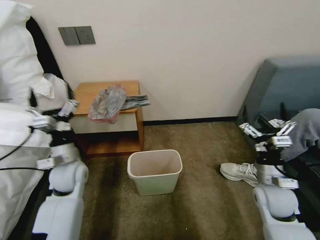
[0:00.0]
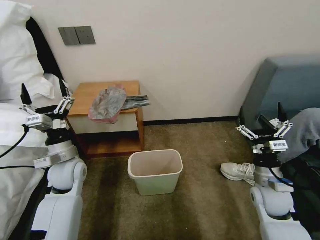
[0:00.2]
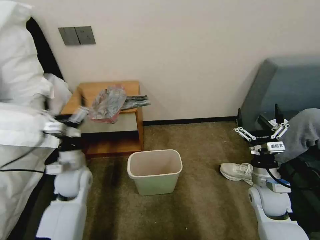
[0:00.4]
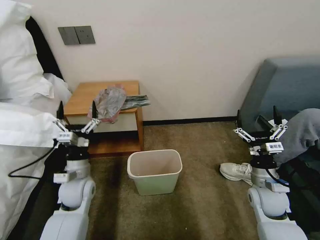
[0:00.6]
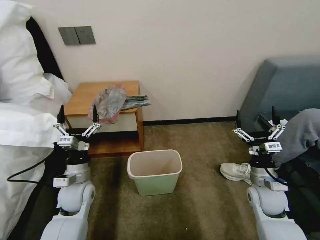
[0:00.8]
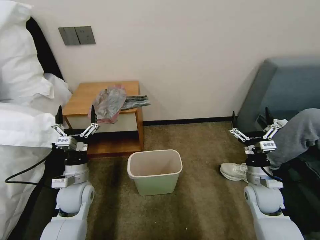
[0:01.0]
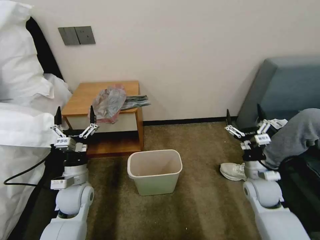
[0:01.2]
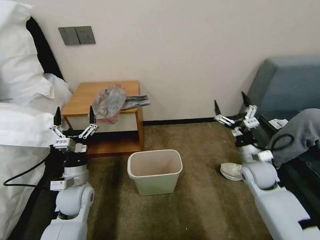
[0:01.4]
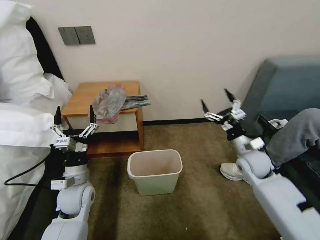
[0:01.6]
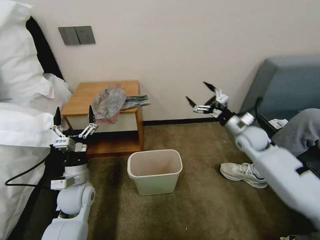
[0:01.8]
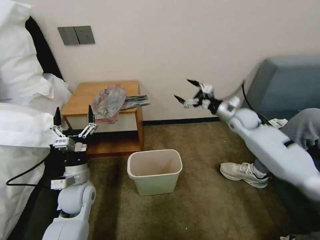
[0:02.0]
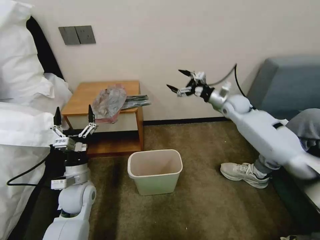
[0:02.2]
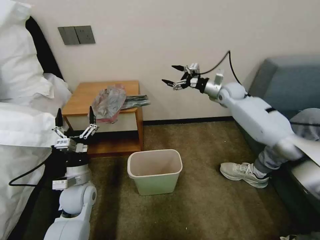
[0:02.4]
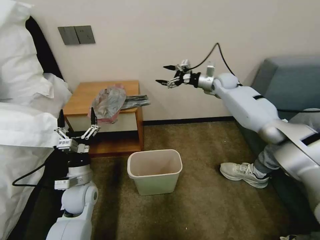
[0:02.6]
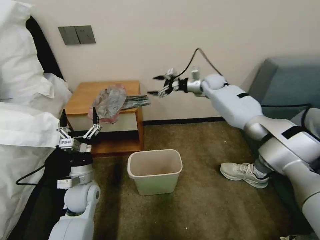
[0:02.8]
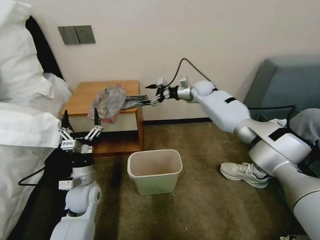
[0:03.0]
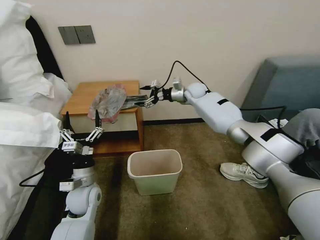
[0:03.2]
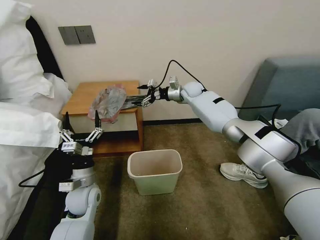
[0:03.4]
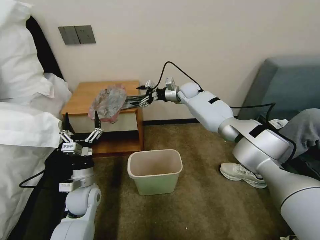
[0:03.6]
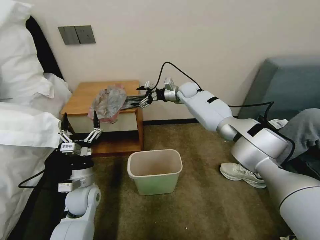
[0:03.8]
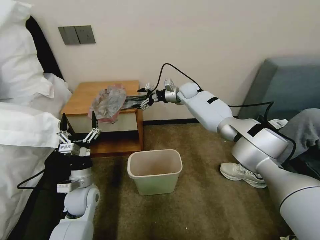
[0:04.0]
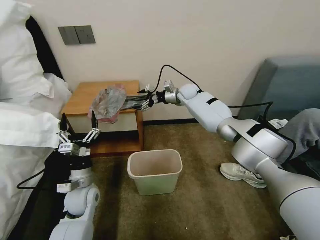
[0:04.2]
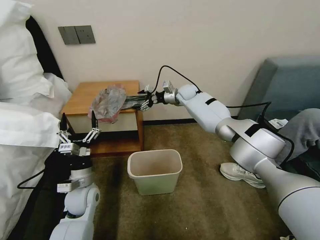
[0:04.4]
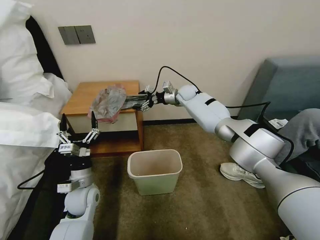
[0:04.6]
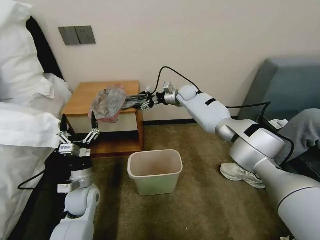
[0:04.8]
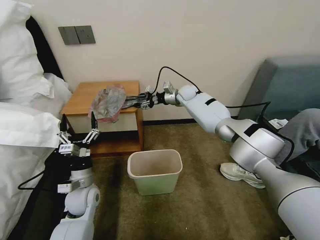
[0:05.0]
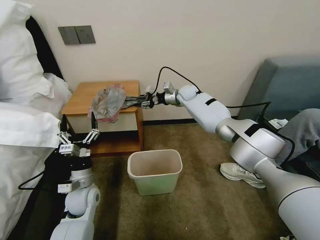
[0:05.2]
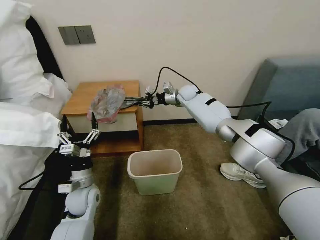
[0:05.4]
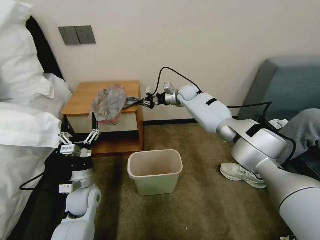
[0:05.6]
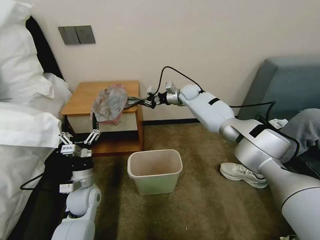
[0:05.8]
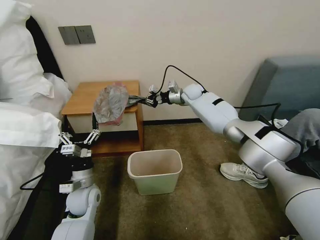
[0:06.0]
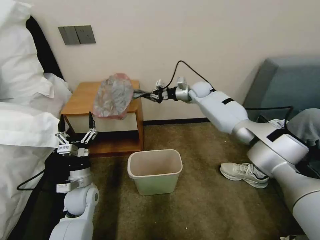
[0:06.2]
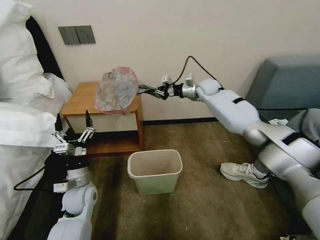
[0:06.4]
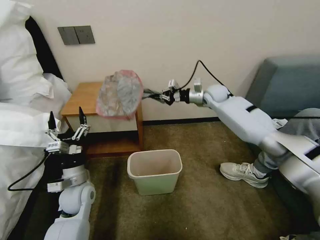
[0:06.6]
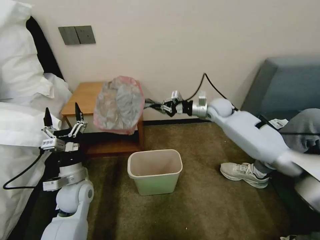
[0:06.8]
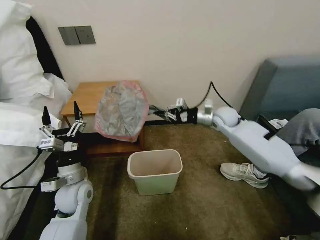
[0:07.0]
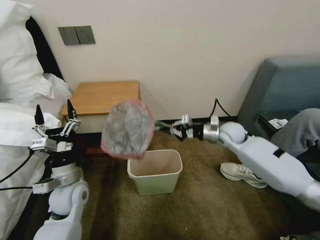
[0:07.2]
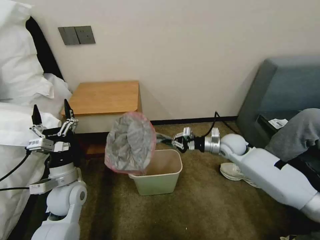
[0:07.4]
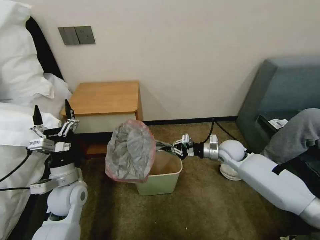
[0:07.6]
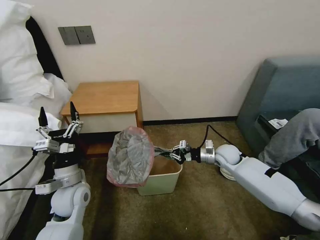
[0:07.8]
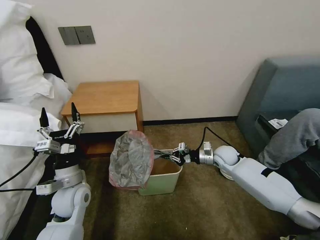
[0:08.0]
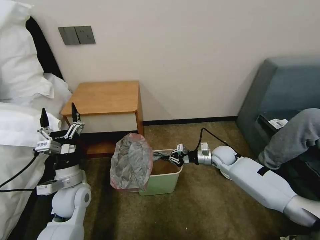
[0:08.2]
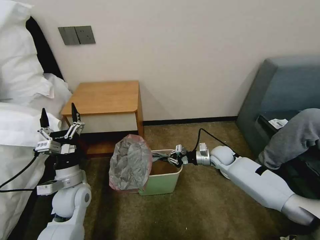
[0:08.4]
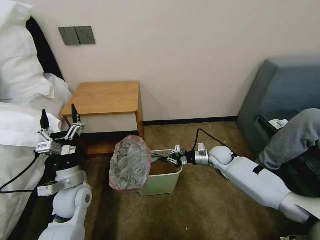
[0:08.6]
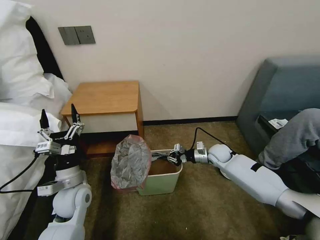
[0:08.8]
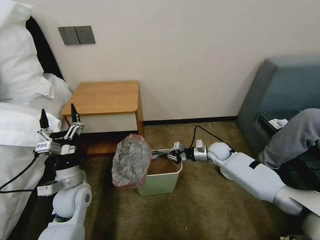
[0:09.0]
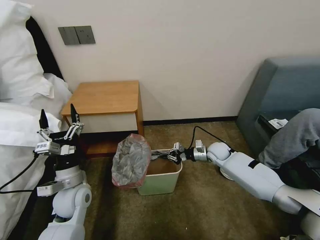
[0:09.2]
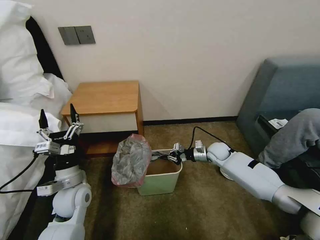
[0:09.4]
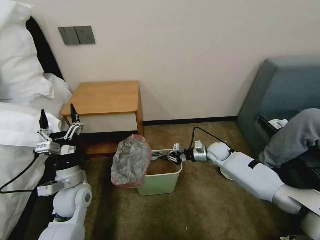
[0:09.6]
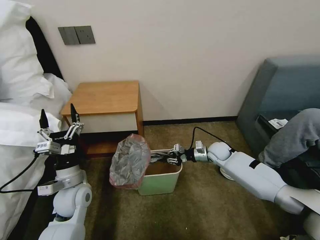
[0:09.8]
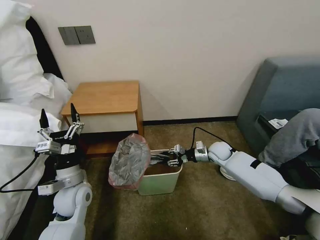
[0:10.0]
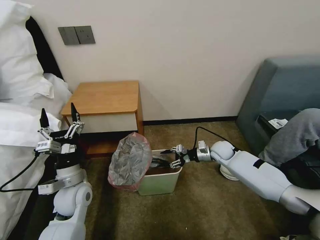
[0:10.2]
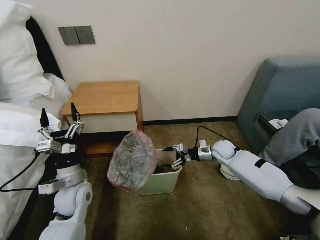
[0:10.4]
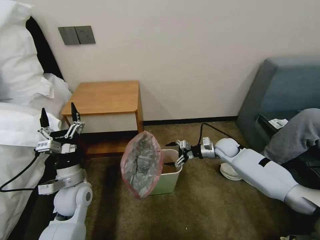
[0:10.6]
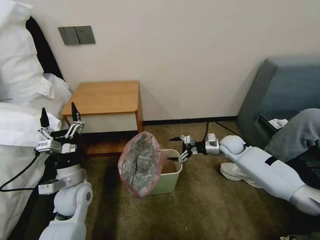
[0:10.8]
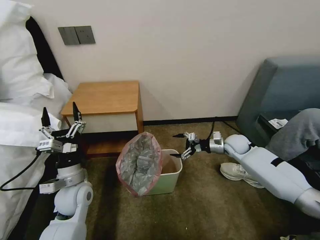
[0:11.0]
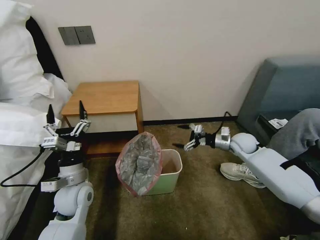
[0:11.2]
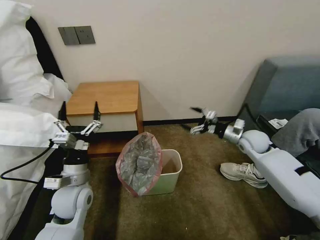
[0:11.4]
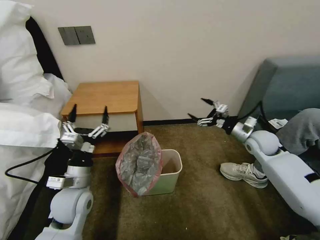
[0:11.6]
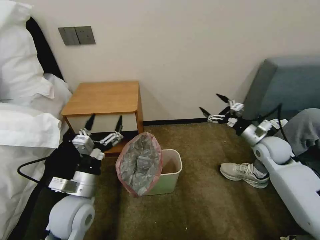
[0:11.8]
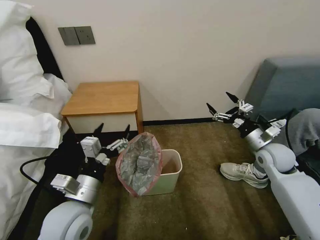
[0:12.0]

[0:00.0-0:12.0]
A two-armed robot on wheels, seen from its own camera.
Task of the whole recording: Pick up the garbage bag from the table and place it over the trash can.
0:00.0 to 0:01.6: The left gripper heads downward and backward, covering about 5 cm. Meanwhile the right gripper heads forward, covering about 10 cm.
0:01.6 to 0:03.0: The right gripper goes about 30 cm forward and to the left.
0:03.0 to 0:04.4: The right gripper goes roughly 5 cm to the left.
0:04.4 to 0:06.0: The right gripper closes.
0:06.0 to 0:07.6: The right gripper moves backward, downward and to the right, approximately 30 cm; the left gripper goes roughly 5 cm upward.
0:07.6 to 0:09.0: The right gripper shifts approximately 5 cm downward.
0:09.0 to 0:10.4: The right gripper opens its fingers.
0:10.4 to 0:12.0: The right gripper is displaced upward, backward and to the right by about 20 cm. The left gripper moves backward, upward and to the right, about 15 cm.

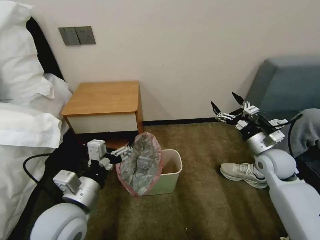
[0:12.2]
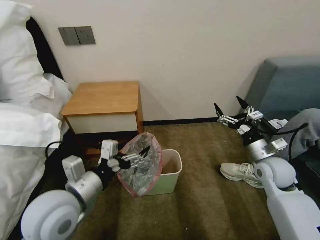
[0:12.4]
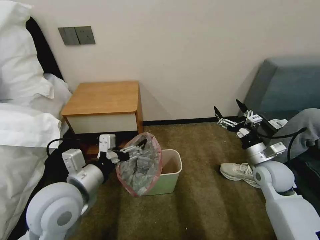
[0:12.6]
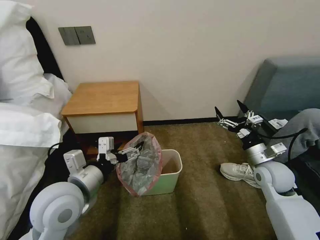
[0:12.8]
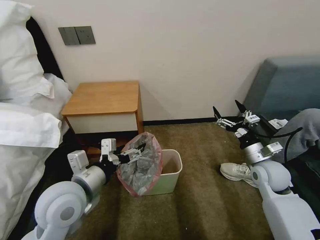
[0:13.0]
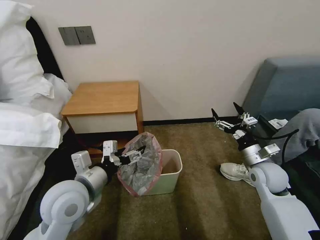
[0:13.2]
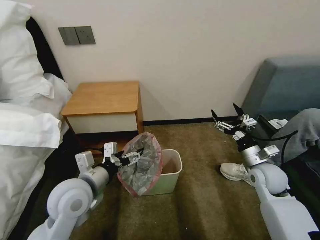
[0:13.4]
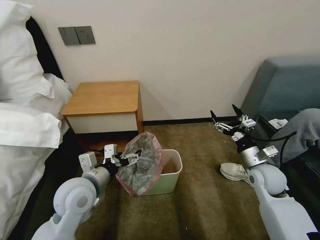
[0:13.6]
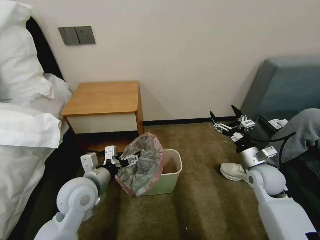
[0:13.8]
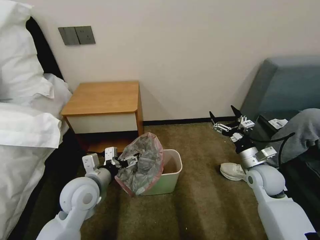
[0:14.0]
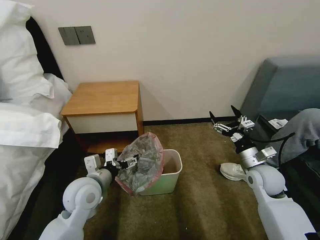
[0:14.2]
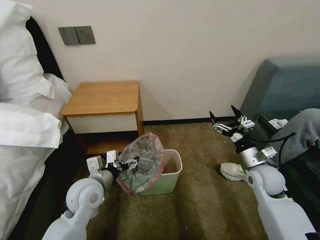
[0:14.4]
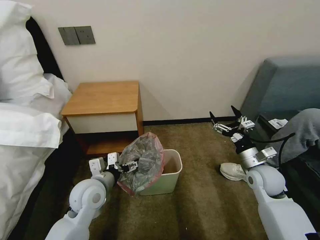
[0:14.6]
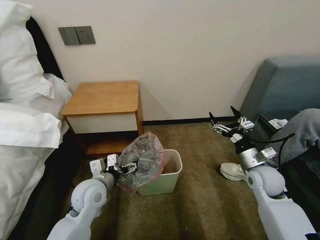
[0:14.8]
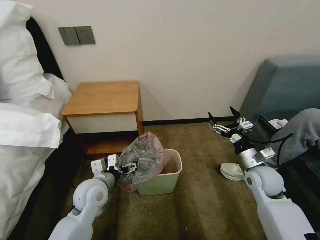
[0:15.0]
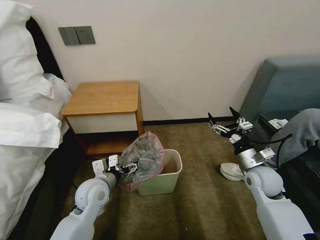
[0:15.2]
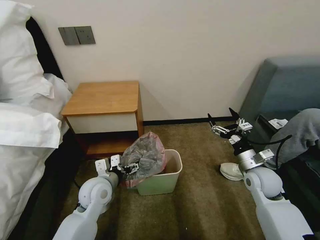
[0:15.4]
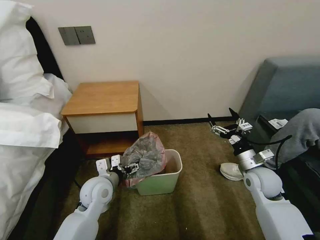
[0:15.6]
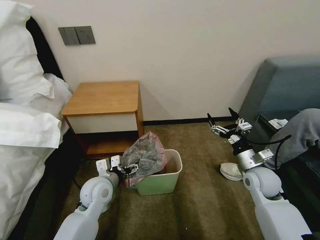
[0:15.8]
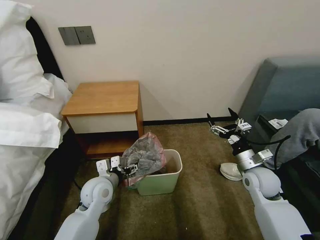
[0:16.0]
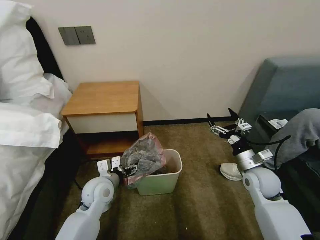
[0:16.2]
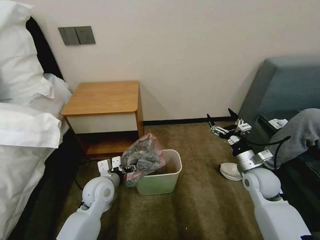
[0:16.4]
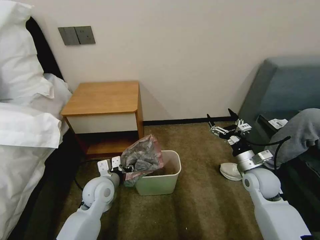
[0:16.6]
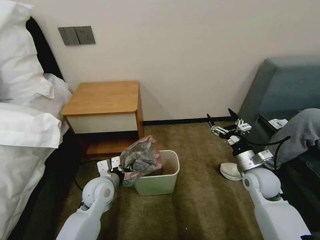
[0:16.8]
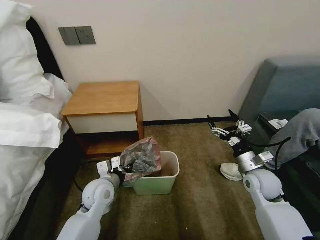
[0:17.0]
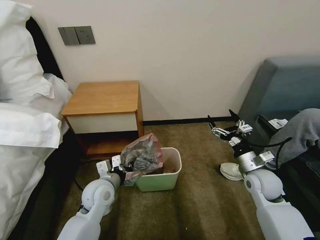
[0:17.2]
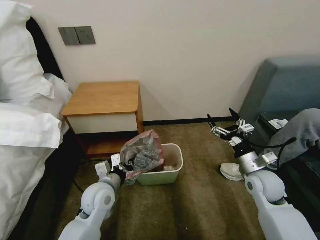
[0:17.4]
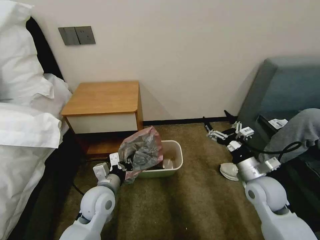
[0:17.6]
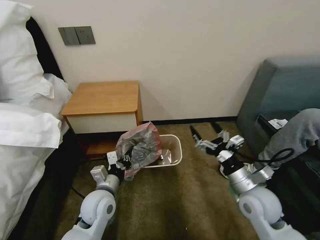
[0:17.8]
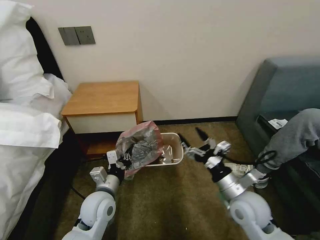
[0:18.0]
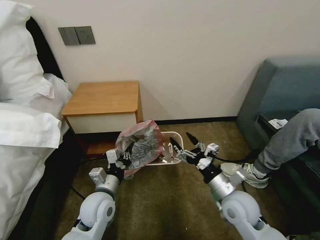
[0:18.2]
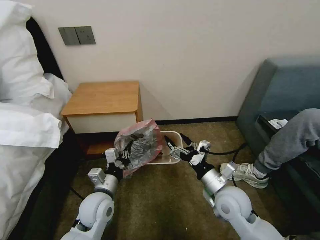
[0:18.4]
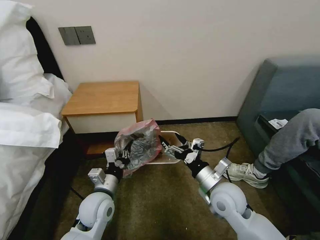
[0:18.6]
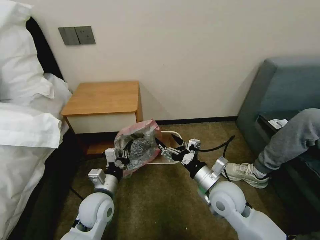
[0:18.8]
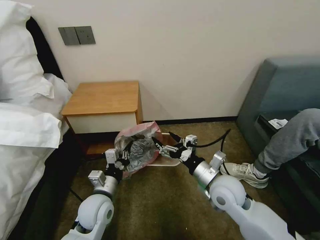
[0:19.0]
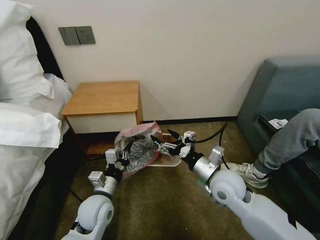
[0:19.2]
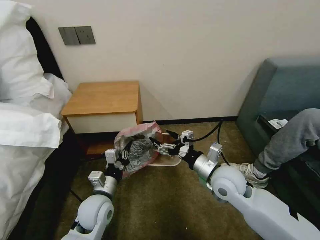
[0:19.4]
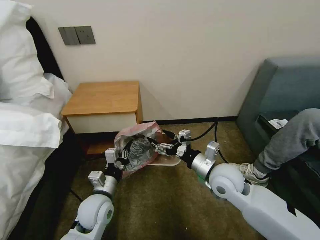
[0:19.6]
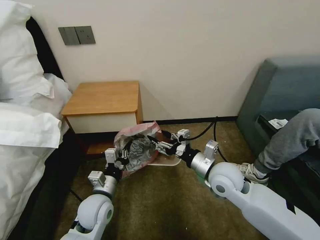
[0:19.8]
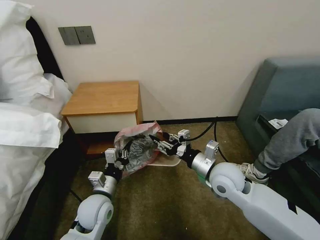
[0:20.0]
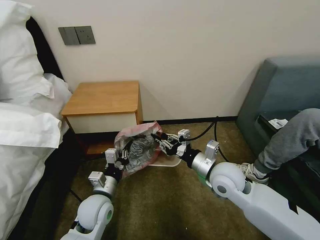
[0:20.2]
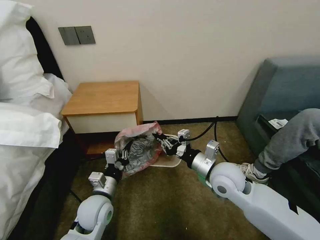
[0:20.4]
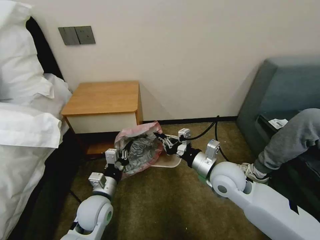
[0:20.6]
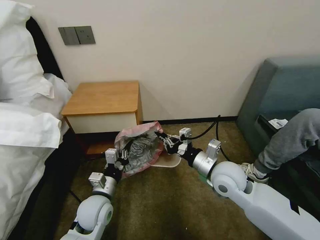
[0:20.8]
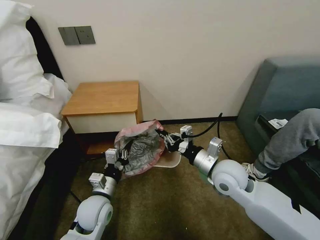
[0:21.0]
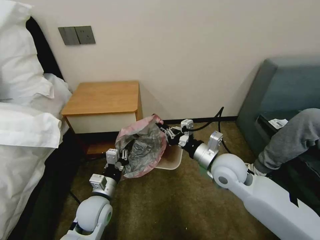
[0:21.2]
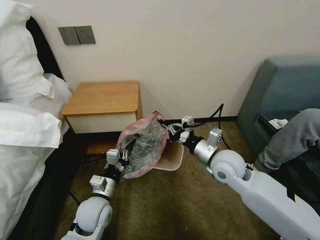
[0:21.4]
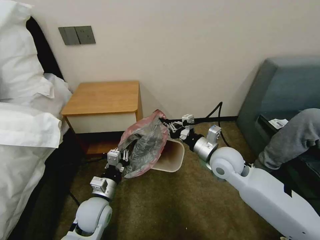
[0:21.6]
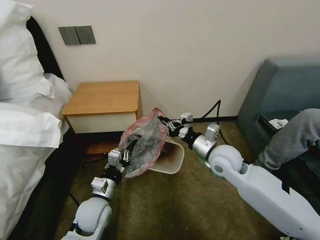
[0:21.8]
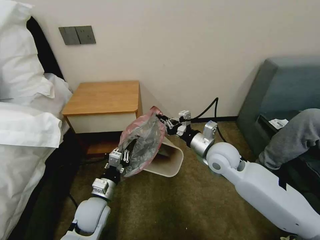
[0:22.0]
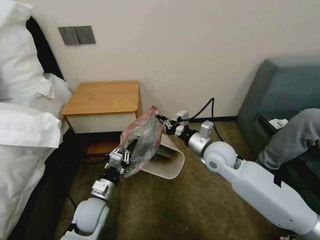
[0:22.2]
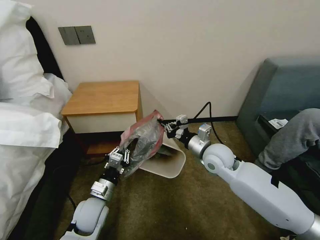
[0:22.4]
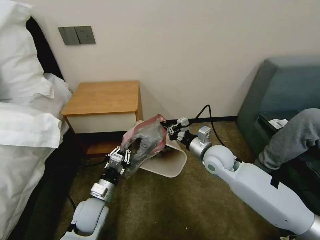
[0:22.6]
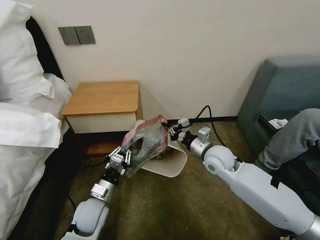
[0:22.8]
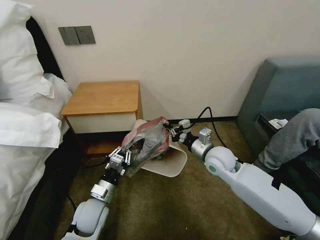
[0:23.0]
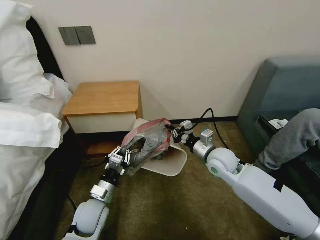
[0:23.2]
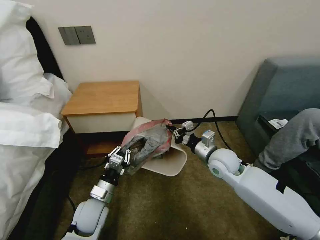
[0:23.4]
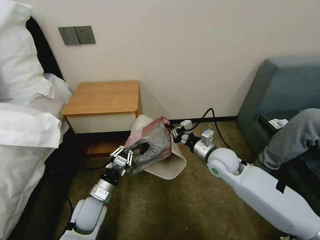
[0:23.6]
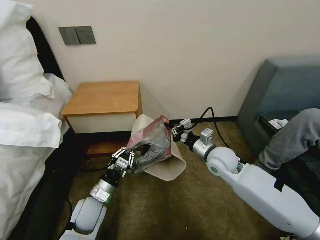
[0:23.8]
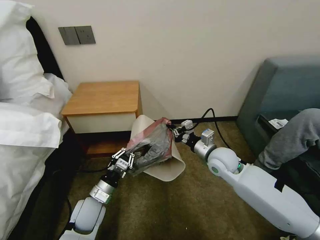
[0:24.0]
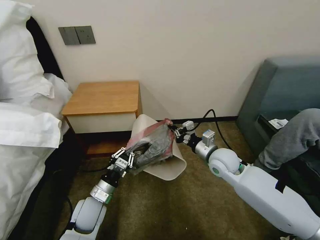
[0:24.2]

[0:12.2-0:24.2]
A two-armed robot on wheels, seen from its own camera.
Task of the whole recording: Pick up the garbage bag from the table and place it over the trash can.
0:12.2 to 0:13.8: The right gripper shifts by about 5 cm. The left gripper heads forward, covering roughly 10 cm.
0:13.8 to 0:15.2: The left gripper is displaced downward by roughly 5 cm.
0:15.2 to 0:16.6: The left gripper closes its fingers.
0:16.6 to 0:18.2: The left gripper changes place by about 5 cm. The right gripper is displaced to the left and backward by approximately 15 cm.
0:18.2 to 0:19.8: The right gripper moves forward and upward, approximately 10 cm.
0:19.8 to 0:21.2: The right gripper closes up.
0:21.2 to 0:22.6: The right gripper is displaced forward by about 5 cm.
0:22.6 to 0:24.2: The grippers stay close to where they were, moving slightly.
